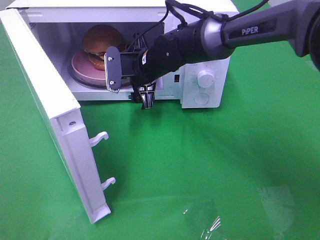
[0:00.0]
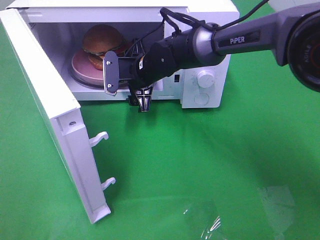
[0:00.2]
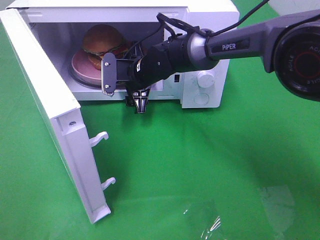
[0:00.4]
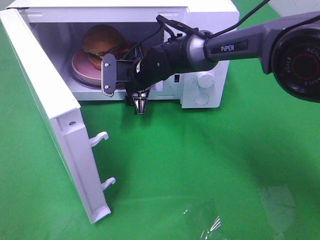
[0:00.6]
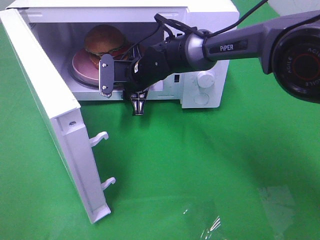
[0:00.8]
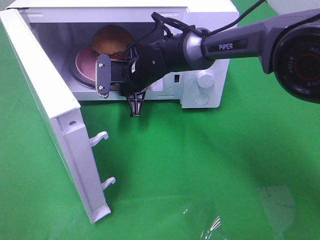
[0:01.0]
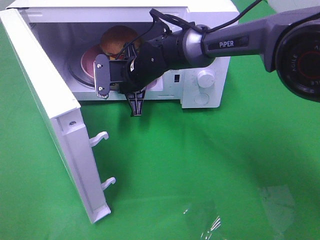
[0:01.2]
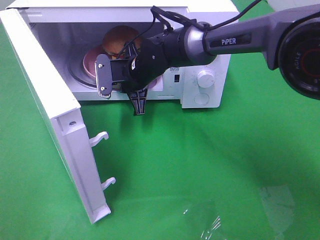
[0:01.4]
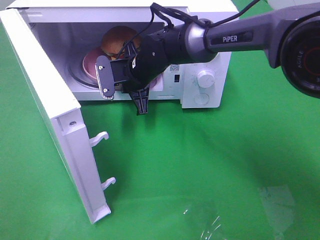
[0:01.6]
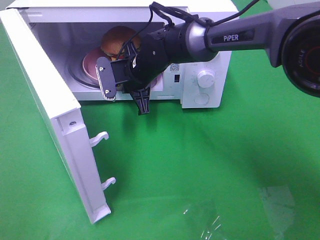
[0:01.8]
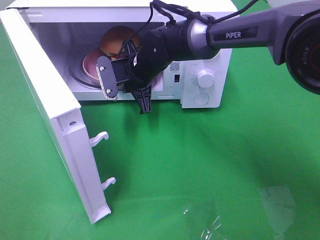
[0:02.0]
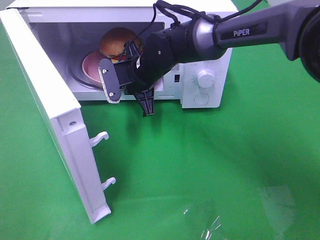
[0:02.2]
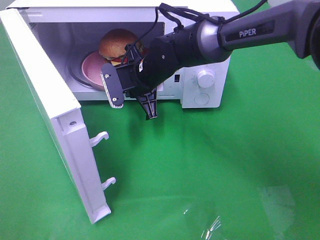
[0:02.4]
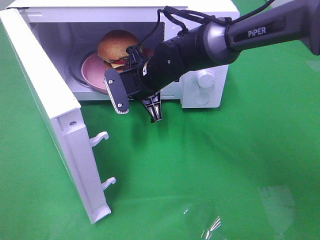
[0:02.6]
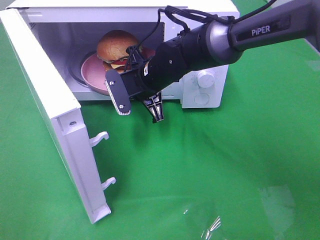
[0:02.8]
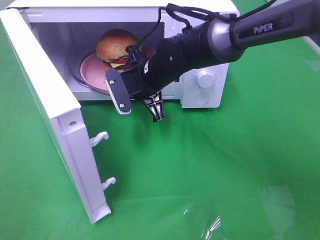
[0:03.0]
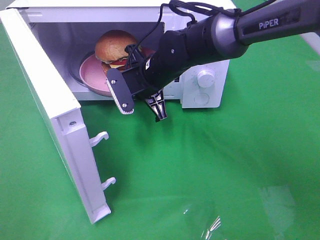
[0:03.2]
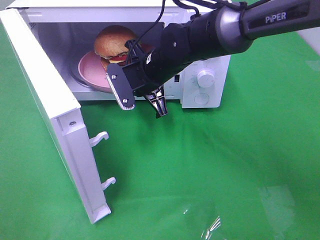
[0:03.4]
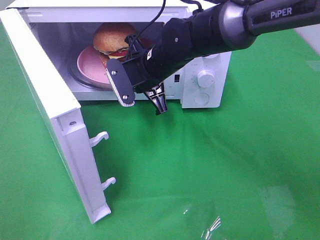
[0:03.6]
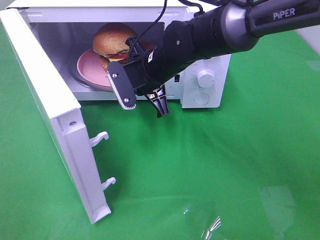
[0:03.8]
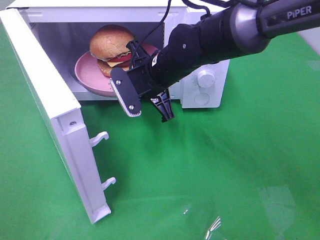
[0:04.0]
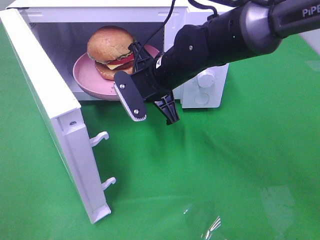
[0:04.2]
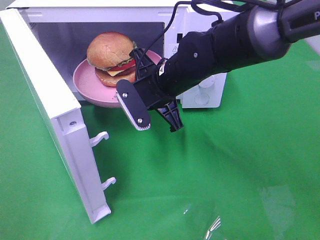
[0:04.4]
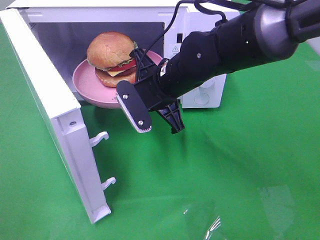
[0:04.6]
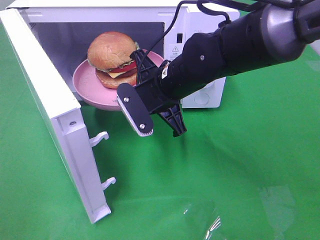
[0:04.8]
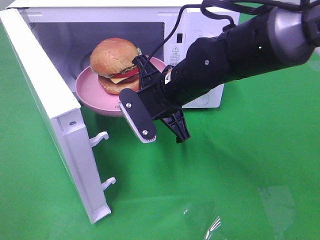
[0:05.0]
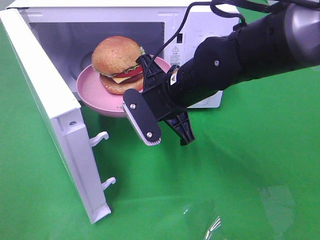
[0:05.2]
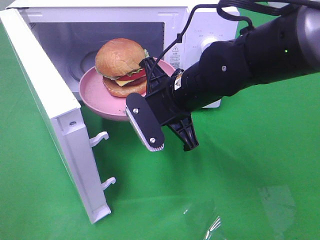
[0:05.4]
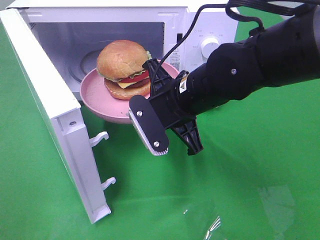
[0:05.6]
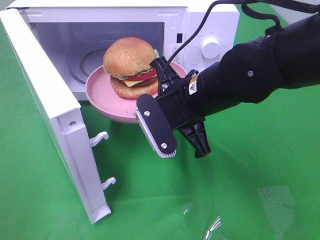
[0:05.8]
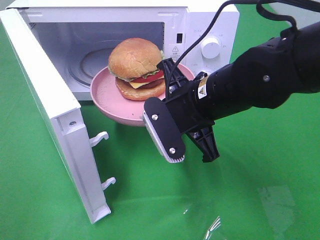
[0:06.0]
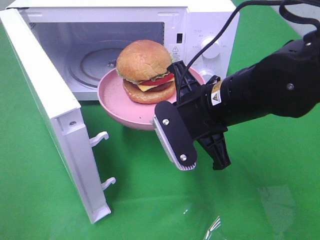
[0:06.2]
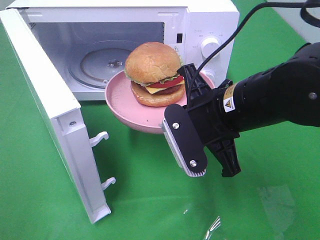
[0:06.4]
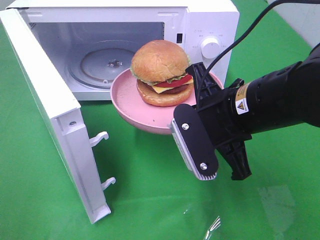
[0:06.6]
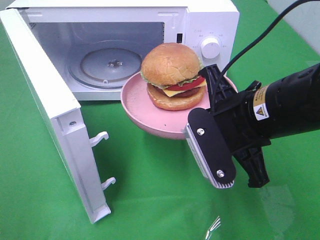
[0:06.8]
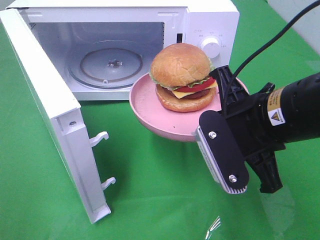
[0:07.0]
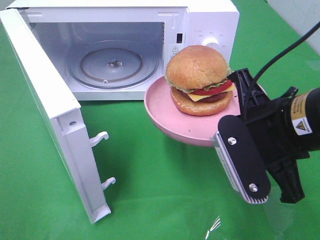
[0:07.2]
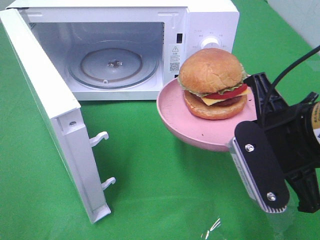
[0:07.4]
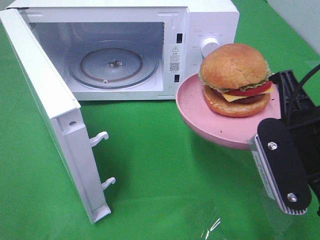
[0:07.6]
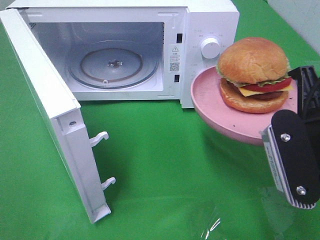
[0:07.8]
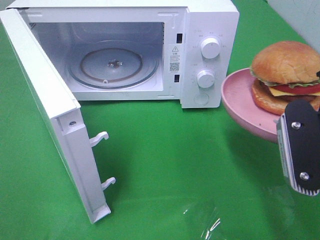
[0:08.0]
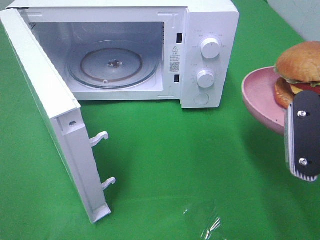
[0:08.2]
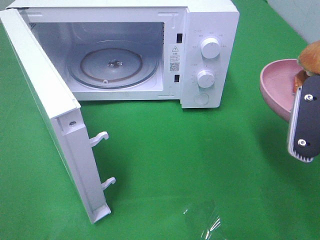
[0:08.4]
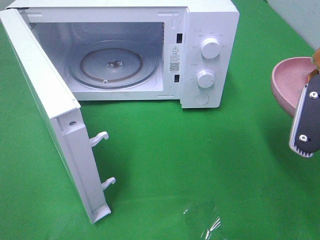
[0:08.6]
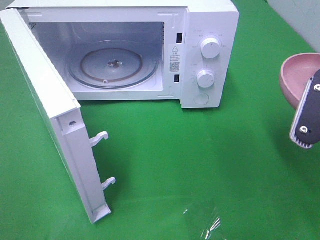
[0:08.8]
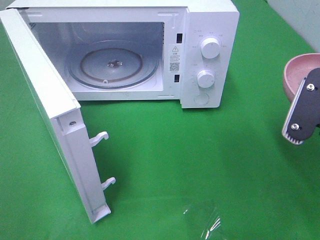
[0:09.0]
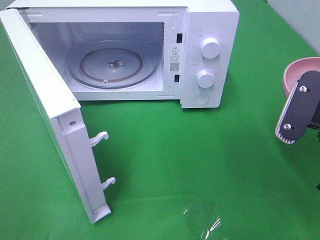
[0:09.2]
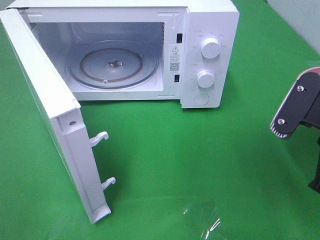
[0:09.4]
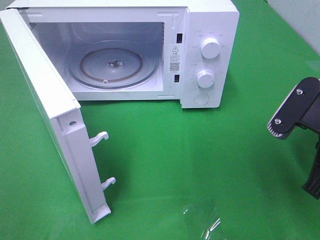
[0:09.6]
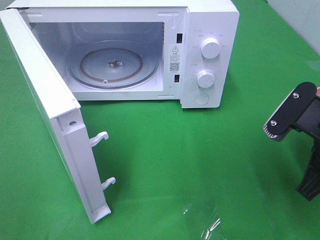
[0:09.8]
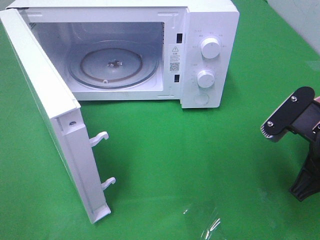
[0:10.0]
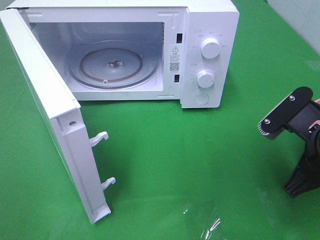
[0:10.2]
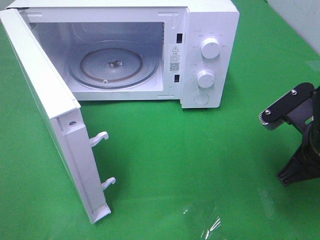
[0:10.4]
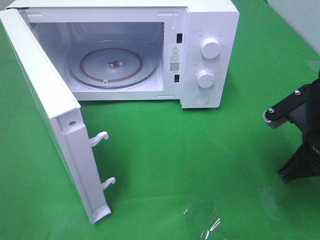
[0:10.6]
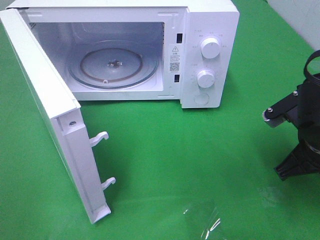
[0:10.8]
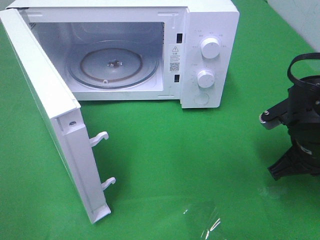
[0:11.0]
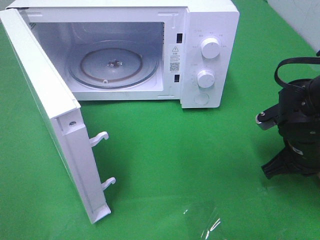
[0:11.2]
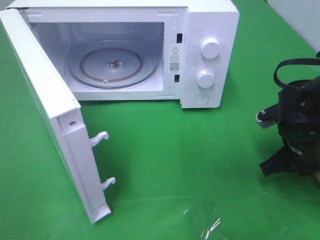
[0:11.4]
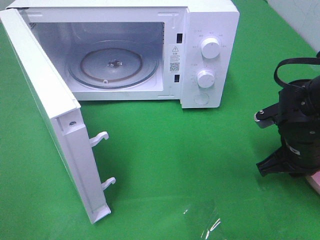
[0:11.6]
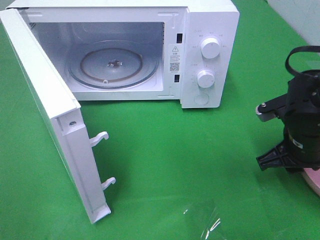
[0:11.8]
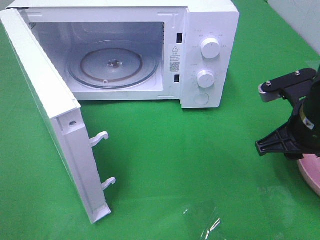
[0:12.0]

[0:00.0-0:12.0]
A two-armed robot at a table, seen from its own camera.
Task of the whole recording: Heat the burger.
Step, 0:01.4 to 0:11.8: Right hand: place the plate on the table.
0:00.0 to 0:01.6: The right gripper closes up.
0:01.6 to 0:03.0: The grippers make only small movements.
0:03.0 to 0:04.4: The right gripper heads backward, covering some 5 cm.
0:04.4 to 0:06.0: The right gripper travels backward by about 10 cm.
0:06.0 to 0:07.6: The right gripper goes approximately 15 cm to the right and backward.
0:09.0 to 0:10.4: The right gripper heads downward, covering some 5 cm.
0:10.4 to 0:12.0: The right gripper opens up.

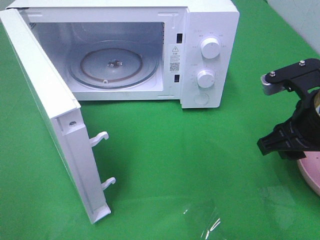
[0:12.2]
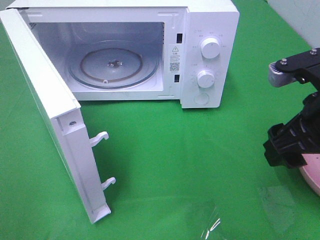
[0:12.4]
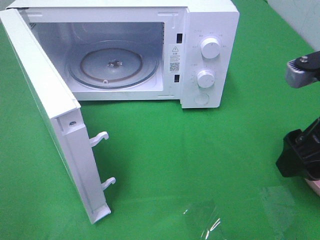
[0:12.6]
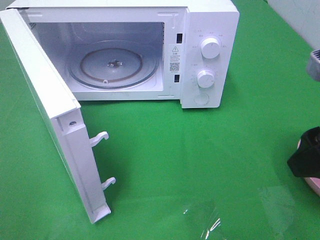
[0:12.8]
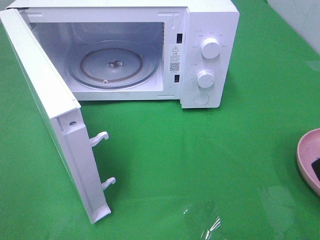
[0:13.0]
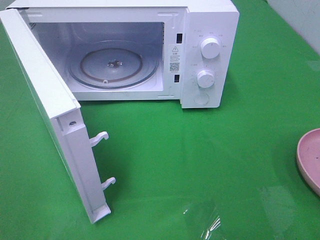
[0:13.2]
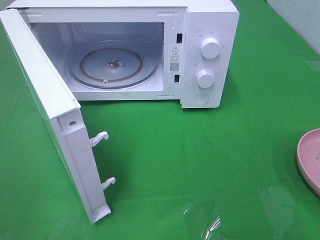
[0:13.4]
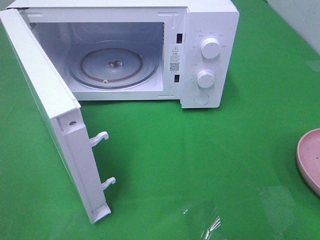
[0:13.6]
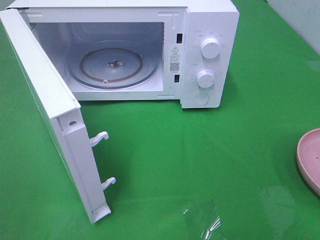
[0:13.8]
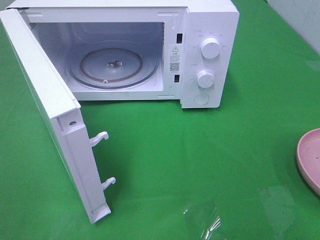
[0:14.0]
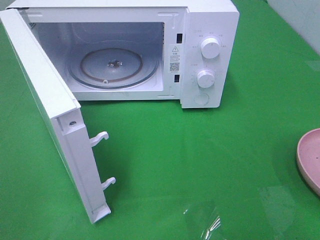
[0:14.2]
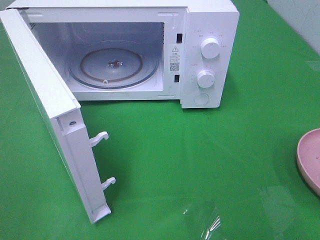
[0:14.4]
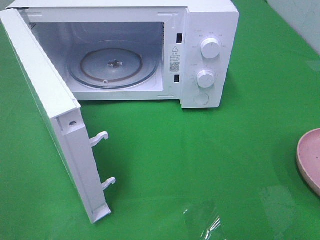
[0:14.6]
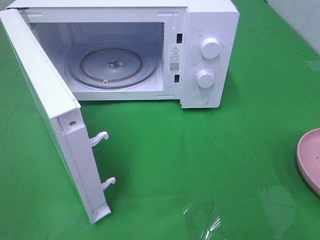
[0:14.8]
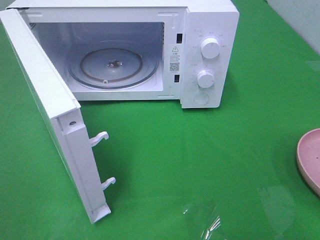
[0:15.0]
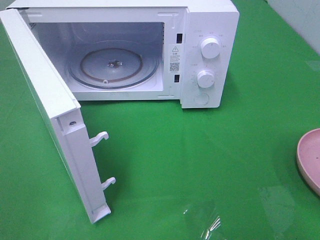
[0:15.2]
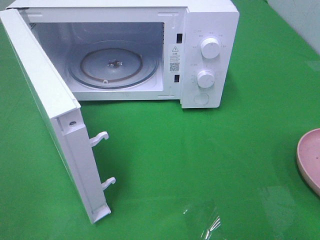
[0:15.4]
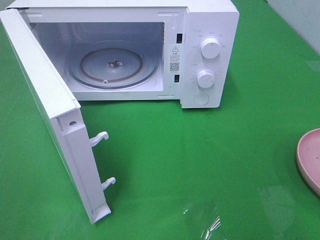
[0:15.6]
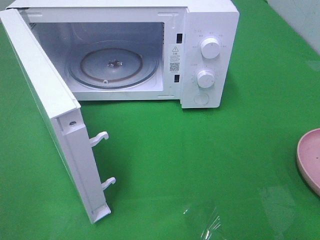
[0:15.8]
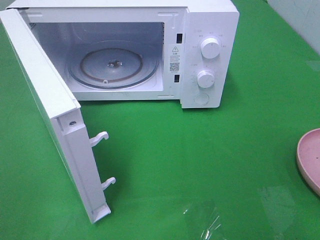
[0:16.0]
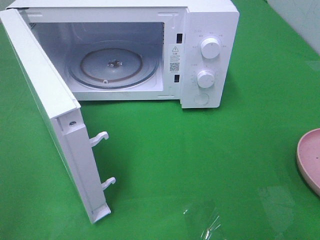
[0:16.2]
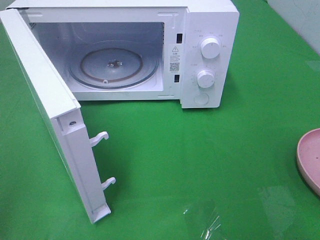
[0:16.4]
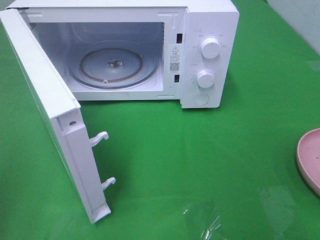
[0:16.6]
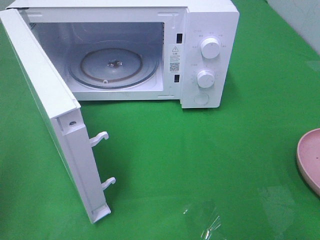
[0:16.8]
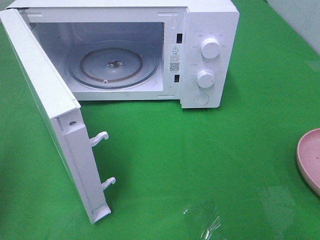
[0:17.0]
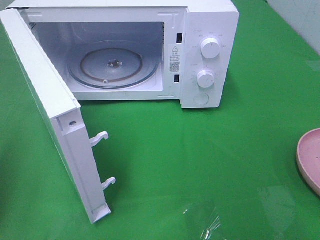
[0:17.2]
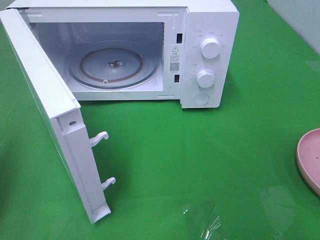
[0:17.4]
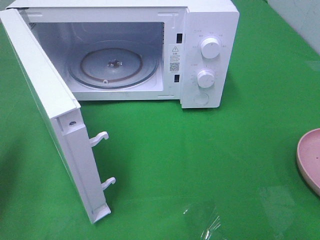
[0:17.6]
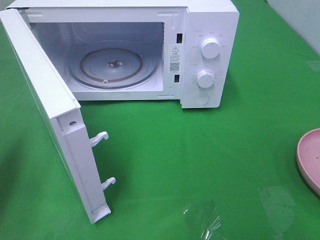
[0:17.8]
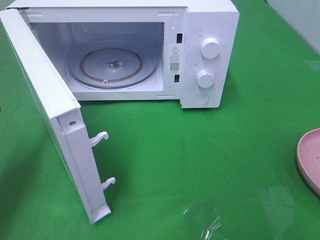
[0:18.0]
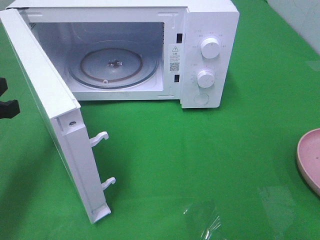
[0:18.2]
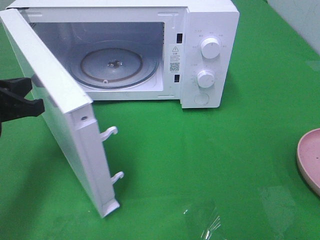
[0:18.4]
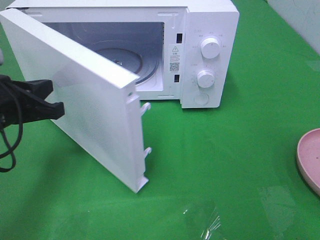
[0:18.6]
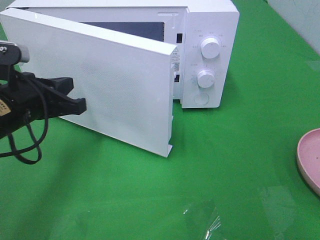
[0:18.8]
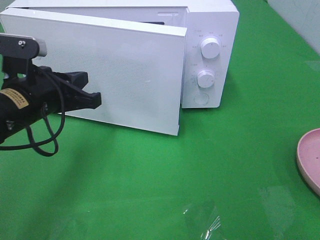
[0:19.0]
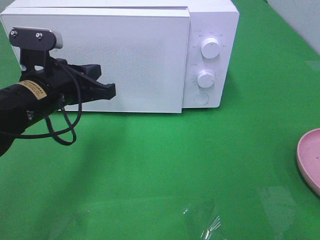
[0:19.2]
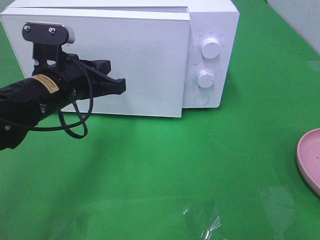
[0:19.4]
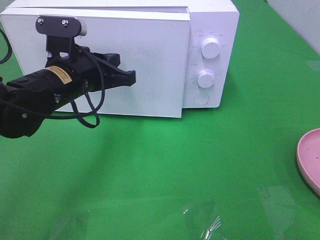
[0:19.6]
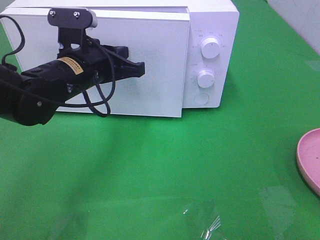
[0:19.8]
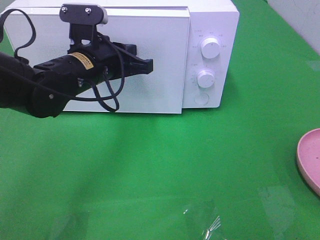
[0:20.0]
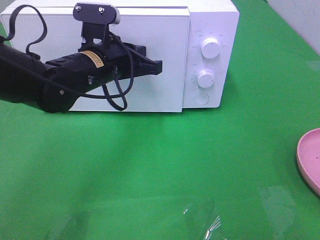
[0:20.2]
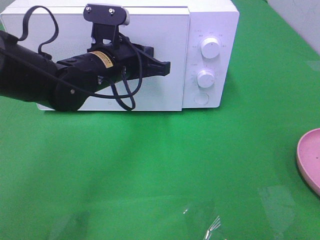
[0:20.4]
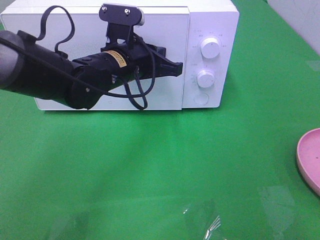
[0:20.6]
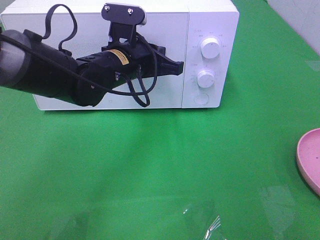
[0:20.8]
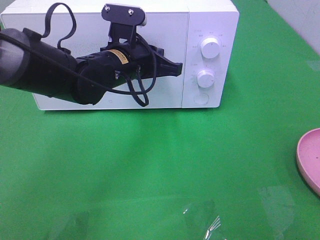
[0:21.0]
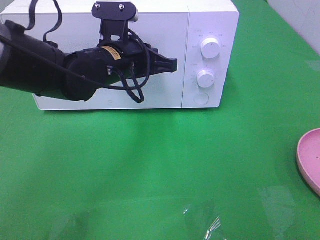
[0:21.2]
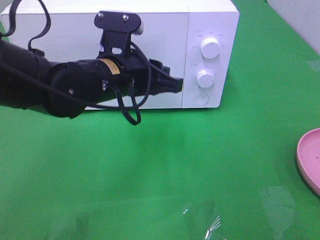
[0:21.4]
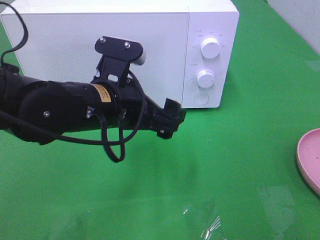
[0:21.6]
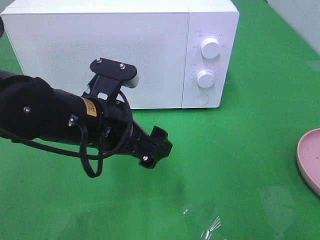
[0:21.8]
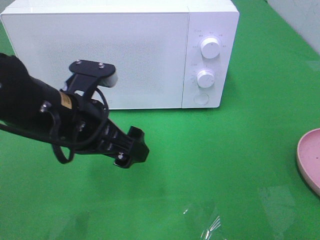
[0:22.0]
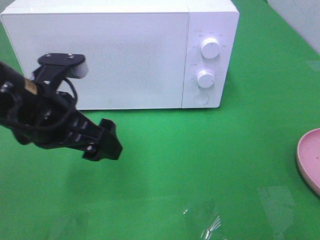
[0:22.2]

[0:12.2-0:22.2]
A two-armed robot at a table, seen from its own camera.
Task of the whole recording: Heat the burger.
Step, 0:12.2 to 0:21.6: Left hand: close the microwave door.
0:12.2 to 0:13.6: The right gripper heads backward, to the right and upward, covering some 20 cm.
0:16.4 to 0:18.0: The left gripper heads forward and downward, covering roughly 20 cm.
0:18.0 to 0:19.4: The left gripper heads to the right and forward, covering some 15 cm.
0:19.4 to 0:20.8: The left gripper goes roughly 10 cm to the right and forward.
0:20.8 to 0:22.2: The left gripper is displaced backward and to the left by some 15 cm, and opens its fingers.
